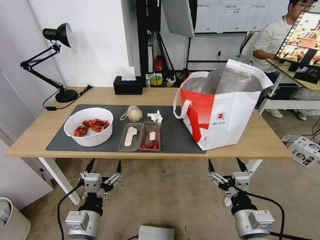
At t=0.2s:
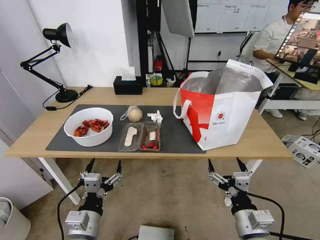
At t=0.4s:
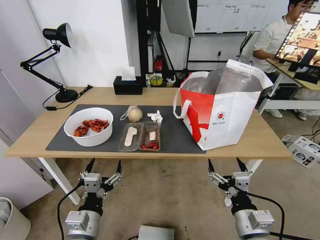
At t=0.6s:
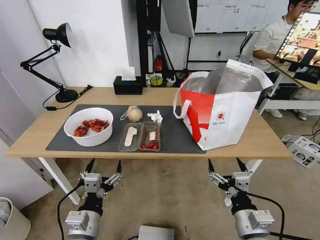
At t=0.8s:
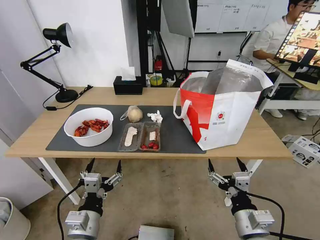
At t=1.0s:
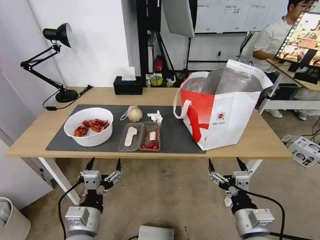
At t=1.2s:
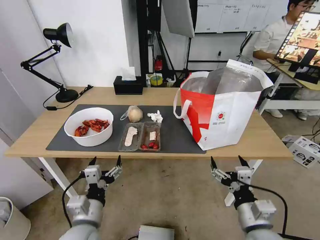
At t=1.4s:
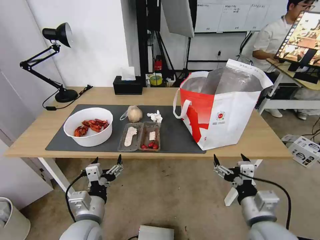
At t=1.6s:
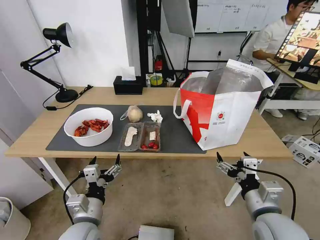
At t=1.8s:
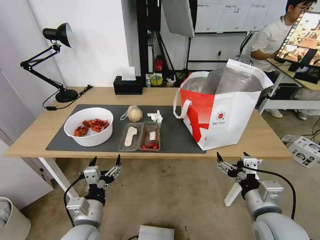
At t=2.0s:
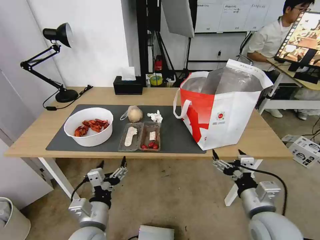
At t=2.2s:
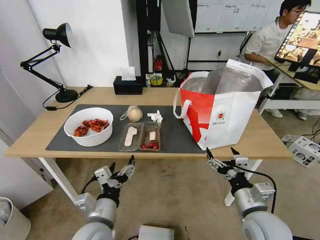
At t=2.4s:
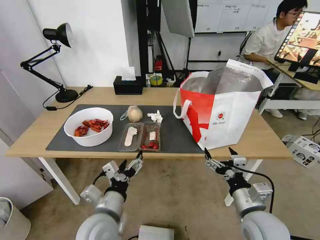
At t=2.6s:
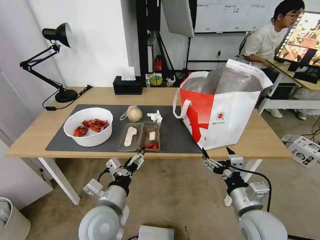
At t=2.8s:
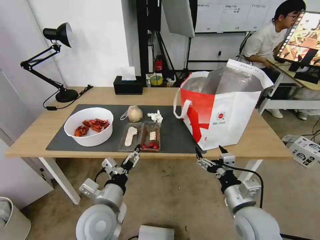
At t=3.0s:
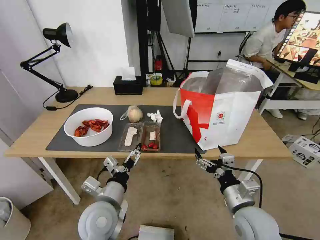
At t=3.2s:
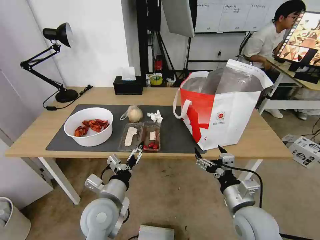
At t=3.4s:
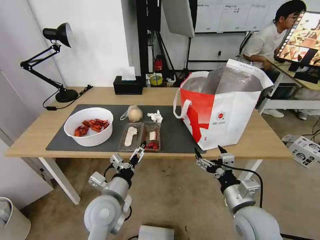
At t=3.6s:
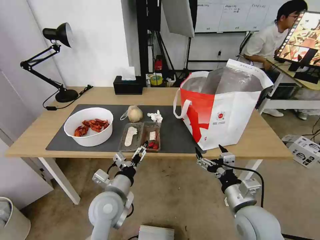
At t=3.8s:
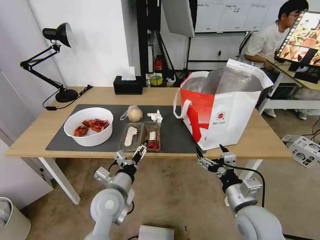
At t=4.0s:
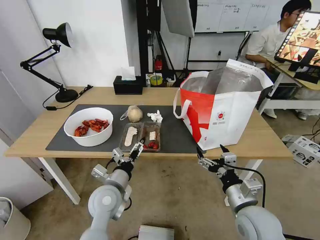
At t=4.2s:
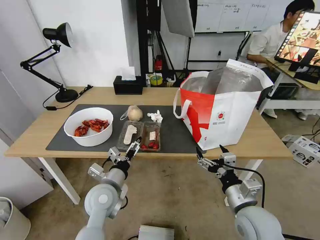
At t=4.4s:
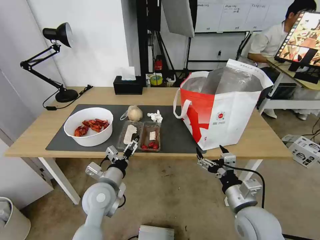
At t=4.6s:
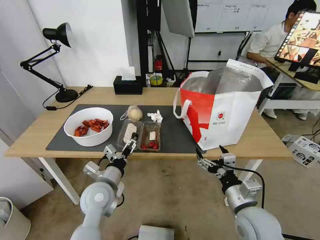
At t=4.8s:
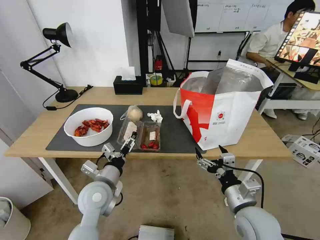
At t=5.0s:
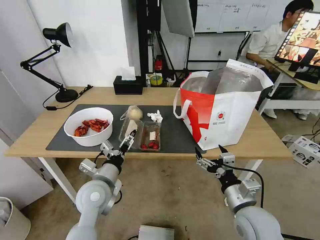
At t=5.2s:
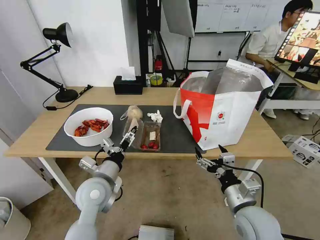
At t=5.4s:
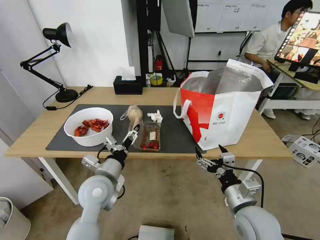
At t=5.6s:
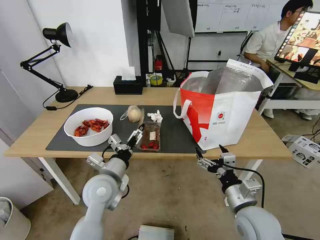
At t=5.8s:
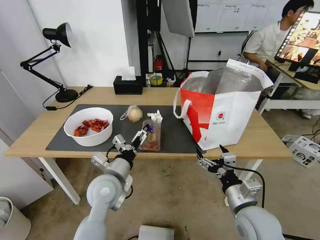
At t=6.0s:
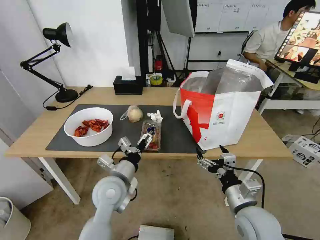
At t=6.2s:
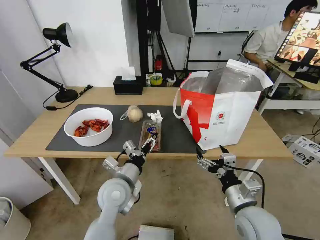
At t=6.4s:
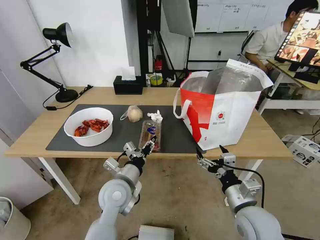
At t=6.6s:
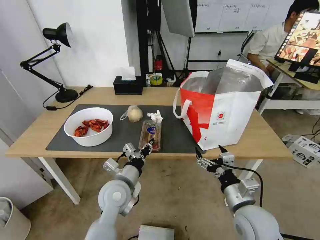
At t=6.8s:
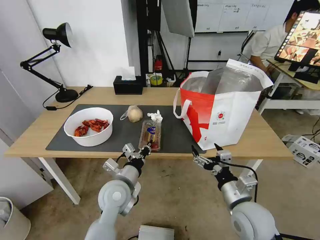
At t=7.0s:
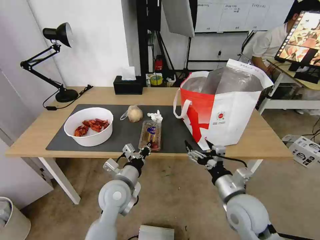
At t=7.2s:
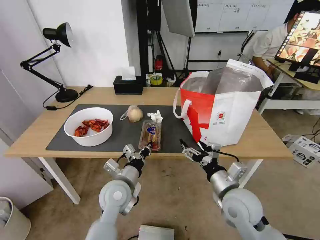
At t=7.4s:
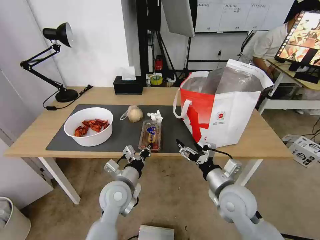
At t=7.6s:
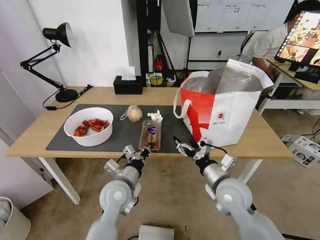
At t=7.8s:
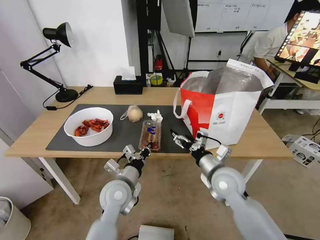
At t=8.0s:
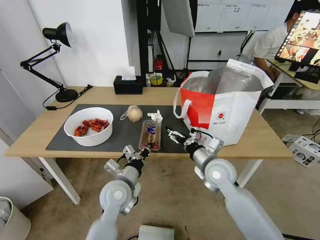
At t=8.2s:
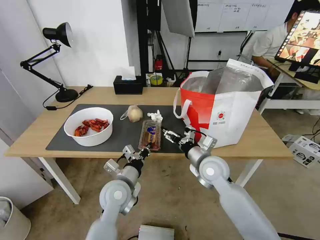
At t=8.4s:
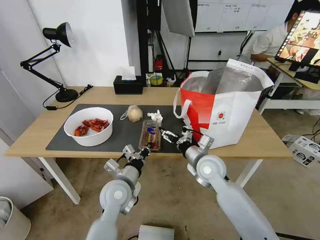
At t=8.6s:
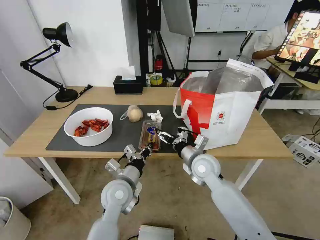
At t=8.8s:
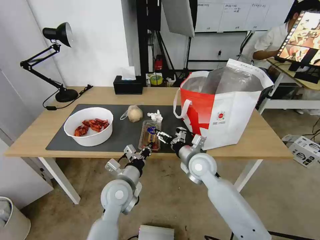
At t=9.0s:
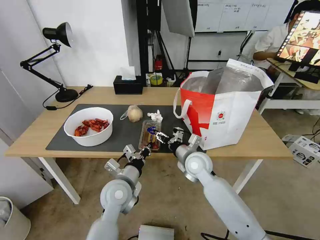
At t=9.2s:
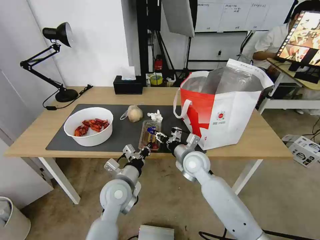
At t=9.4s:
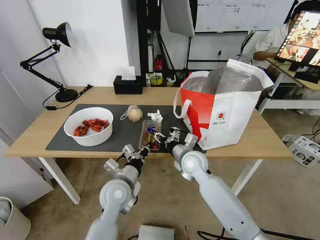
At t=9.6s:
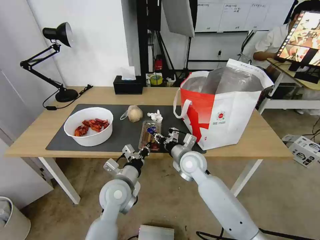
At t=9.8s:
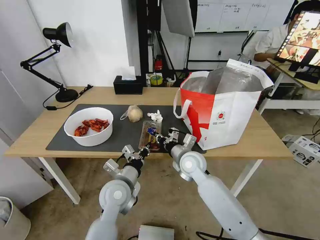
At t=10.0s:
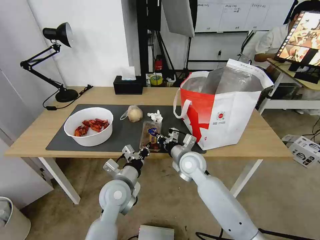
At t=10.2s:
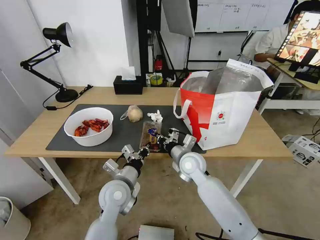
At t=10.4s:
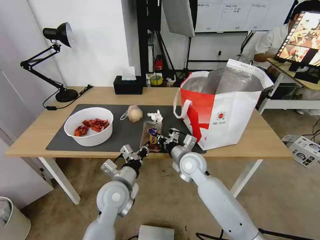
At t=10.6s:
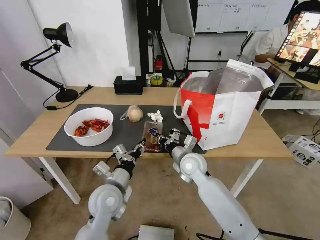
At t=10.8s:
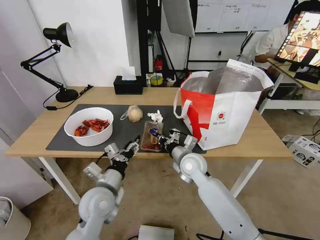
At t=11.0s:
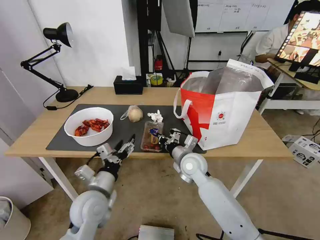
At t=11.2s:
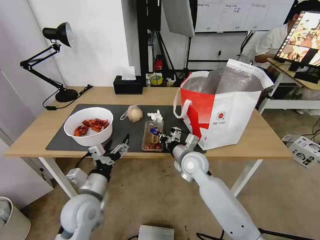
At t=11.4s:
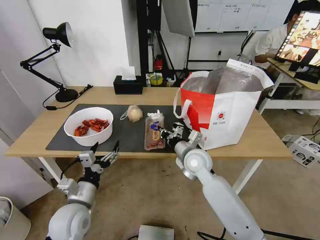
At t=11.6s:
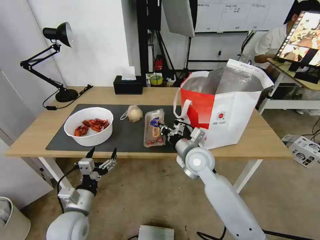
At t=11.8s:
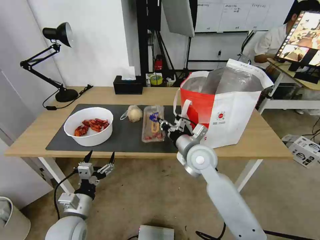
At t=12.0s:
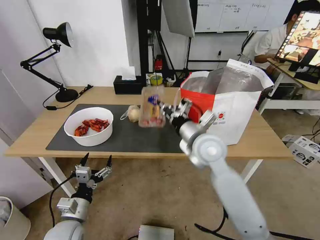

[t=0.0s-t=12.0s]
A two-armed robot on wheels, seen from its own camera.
Task of the whole recording: Pick up the trash from the table and place it into the takeout bag.
t=1.6s to t=3.0s: The left gripper moves some 5 cm. Meanwhile the right gripper changes place by approximately 5 cm.
t=3.0s to t=4.4s: The left gripper travels forward by some 5 cm.
t=4.4s to t=6.0s: The grippers move only a little.
t=6.0s to t=7.6s: The right gripper is displaced forward by approximately 10 cm. The left gripper closes.
t=7.6s to t=9.0s: The right gripper is displaced forward and to the left by roughly 15 cm.
t=9.0s to t=10.4s: The right gripper closes up.
t=10.4s to t=12.0s: The left gripper travels to the left, backward and downward by approximately 15 cm, and opens its fingers; the right gripper is displaced upward by about 10 cm.

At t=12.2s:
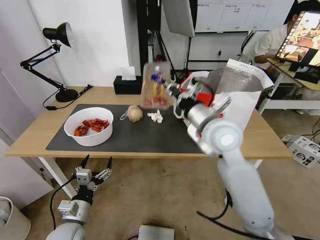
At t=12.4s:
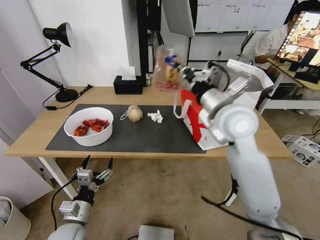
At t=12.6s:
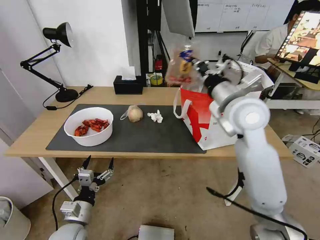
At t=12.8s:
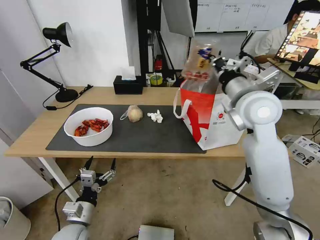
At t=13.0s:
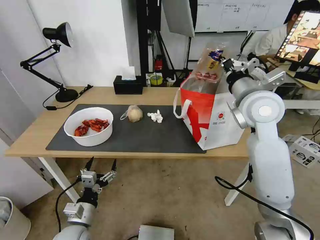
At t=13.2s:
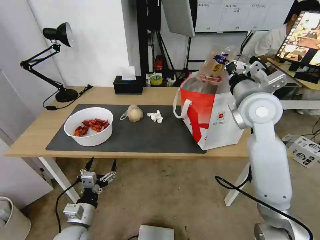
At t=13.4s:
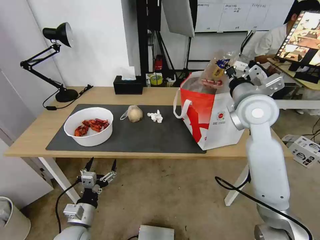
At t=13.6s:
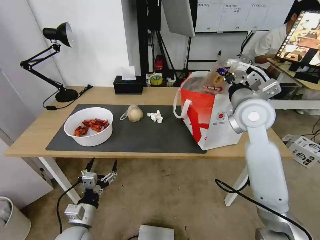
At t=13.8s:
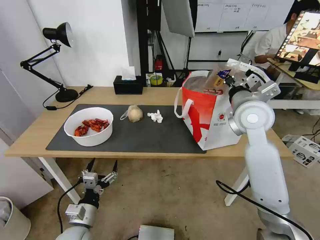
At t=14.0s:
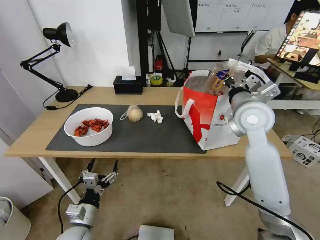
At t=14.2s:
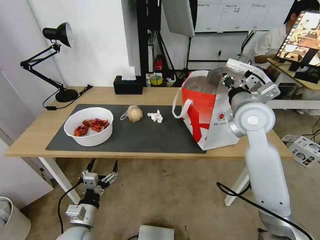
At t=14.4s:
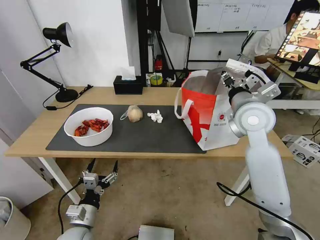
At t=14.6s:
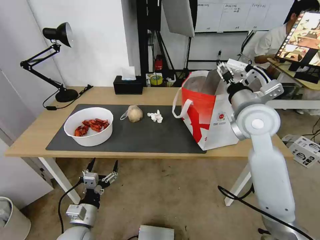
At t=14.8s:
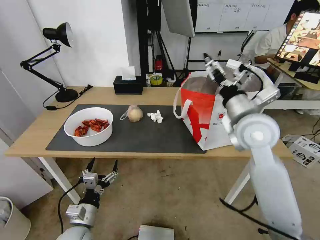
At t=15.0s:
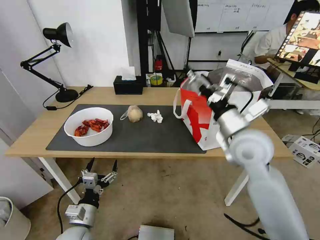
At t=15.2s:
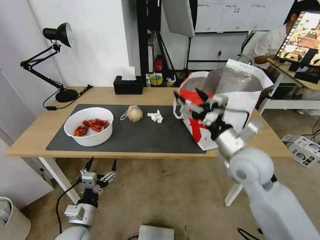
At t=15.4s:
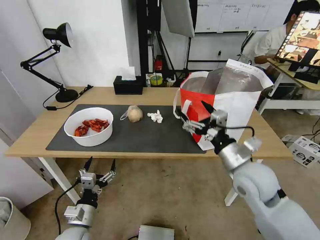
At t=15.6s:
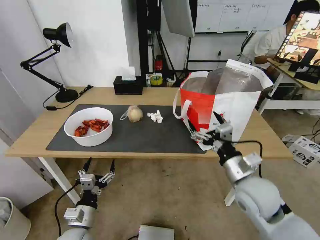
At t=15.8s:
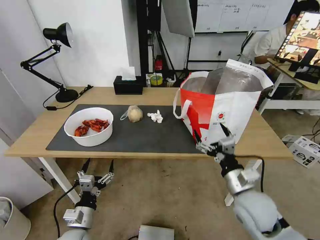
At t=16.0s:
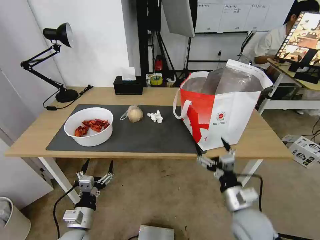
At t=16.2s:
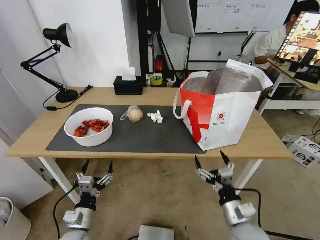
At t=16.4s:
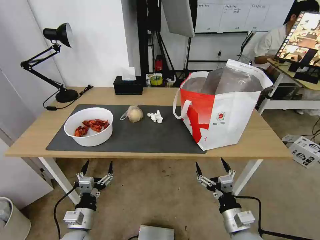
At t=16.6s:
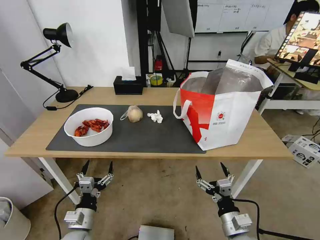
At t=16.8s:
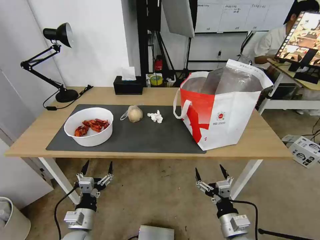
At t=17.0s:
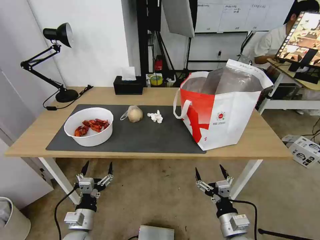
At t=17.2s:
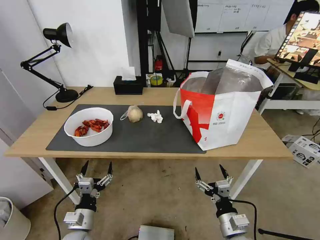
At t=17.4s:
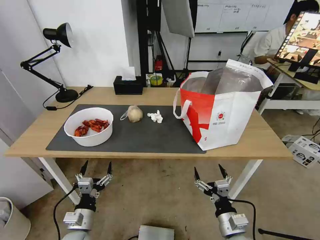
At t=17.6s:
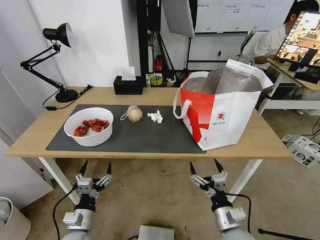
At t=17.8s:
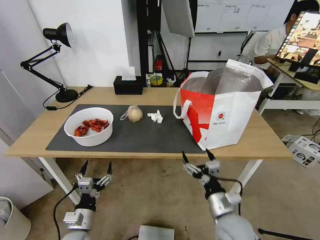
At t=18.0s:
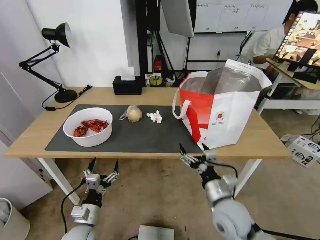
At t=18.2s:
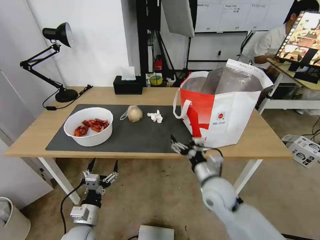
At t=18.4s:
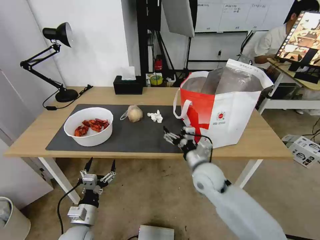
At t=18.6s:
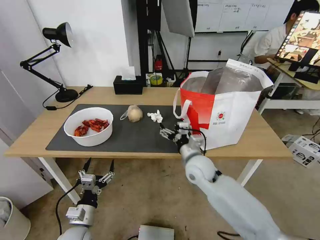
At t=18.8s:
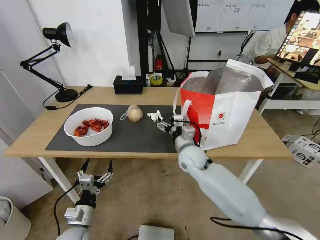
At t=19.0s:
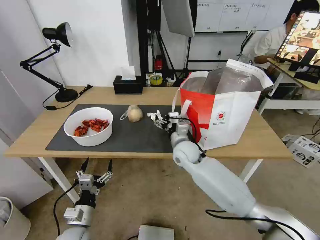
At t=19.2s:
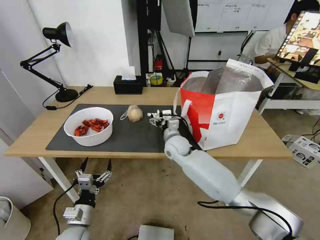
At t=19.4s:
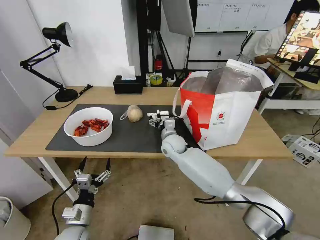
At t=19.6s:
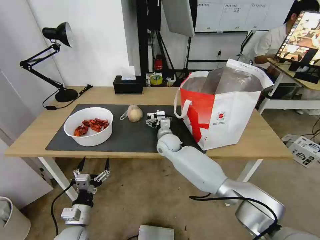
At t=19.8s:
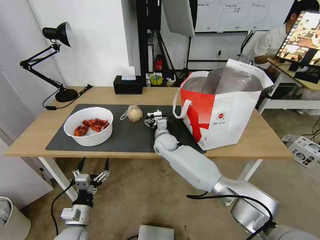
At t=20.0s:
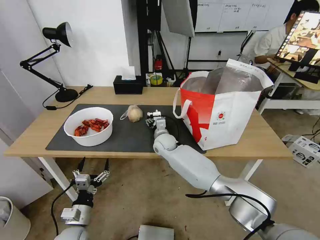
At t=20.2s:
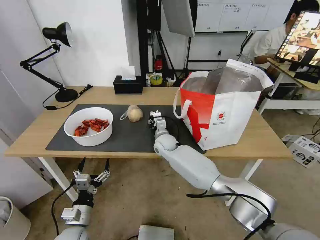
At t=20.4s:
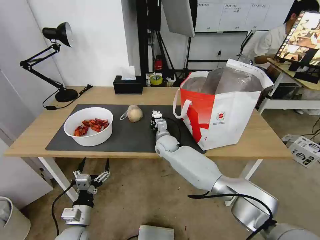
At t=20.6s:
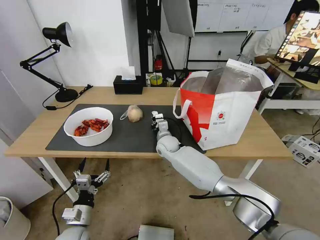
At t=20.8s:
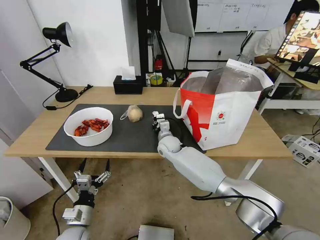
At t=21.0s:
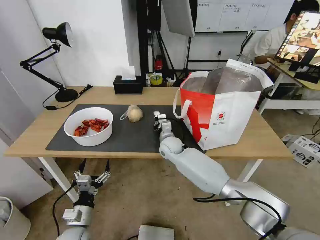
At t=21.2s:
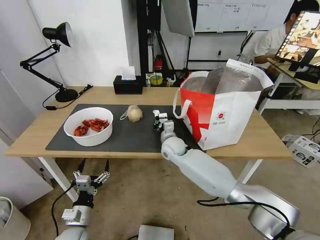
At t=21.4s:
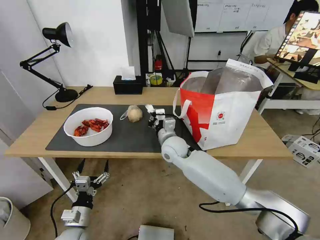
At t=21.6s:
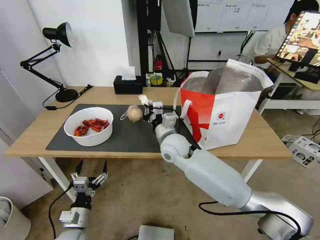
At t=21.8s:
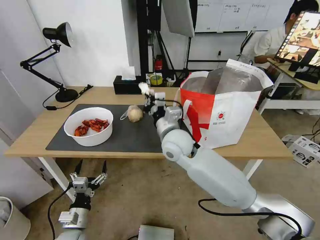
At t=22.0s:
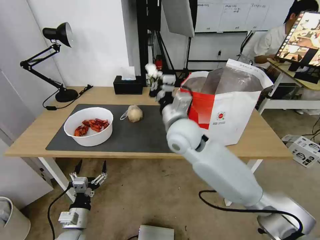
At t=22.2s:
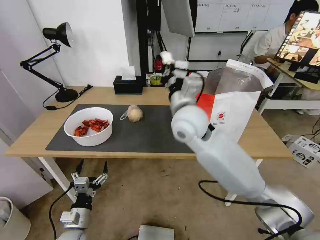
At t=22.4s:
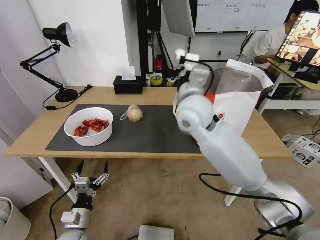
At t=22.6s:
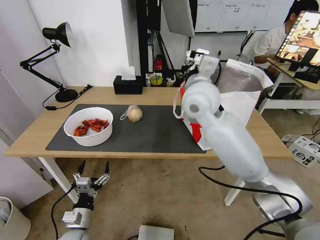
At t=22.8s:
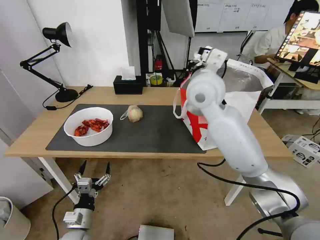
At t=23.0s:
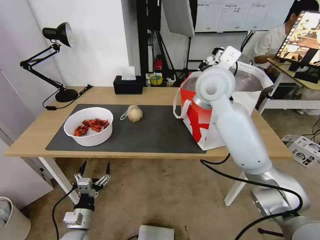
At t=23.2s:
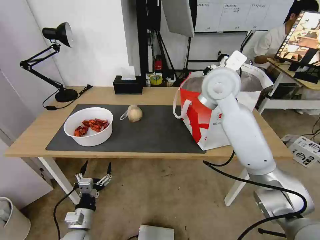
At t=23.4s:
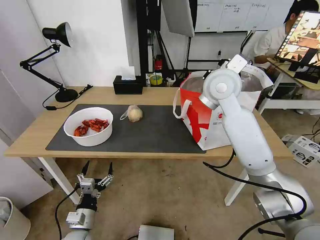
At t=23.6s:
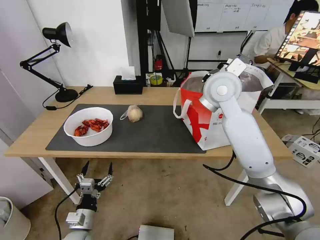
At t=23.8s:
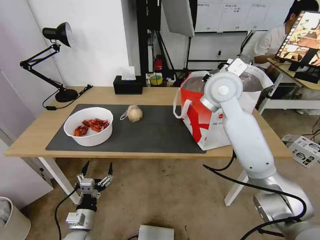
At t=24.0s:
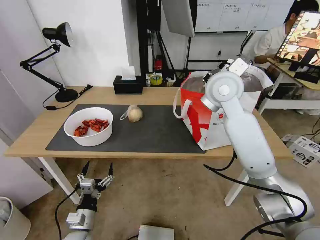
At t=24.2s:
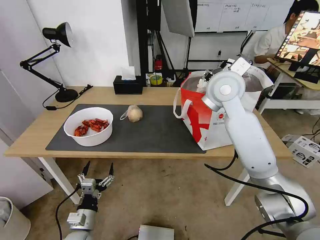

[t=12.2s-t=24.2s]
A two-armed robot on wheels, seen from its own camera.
Task of the whole recording: Pick up the trash from the table and place it into the takeout bag.
t=12.2s to t=13.8s: The right gripper goes about 10 cm to the right and forward.
t=13.8s to t=15.2s: The right gripper is displaced backward and downward by roughly 15 cm, and opens.
t=15.2s to t=16.6s: The right gripper is displaced downward and backward by approximately 25 cm.
t=16.6s to t=18.2s: The right gripper shifts approximately 15 cm forward, upward and to the left.
t=18.2s to t=19.8s: The right gripper moves forward and to the left, some 30 cm.
t=19.8s to t=21.2s: The right gripper closes.
t=21.2s to t=22.6s: The right gripper heads upward, covering roughly 25 cm.
t=22.6s to t=24.2s: The right gripper heads to the right, covering some 5 cm, and opens its fingers.
